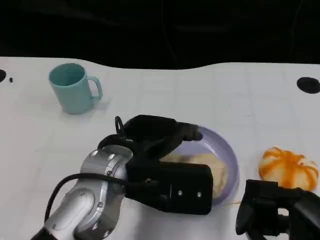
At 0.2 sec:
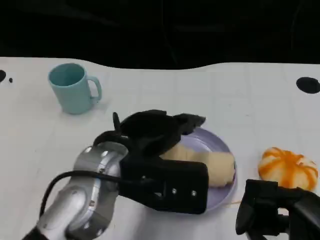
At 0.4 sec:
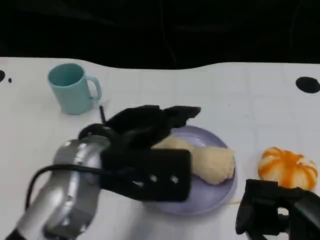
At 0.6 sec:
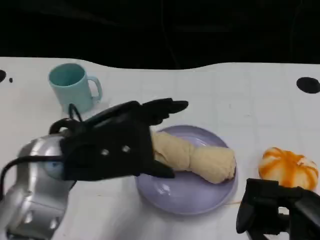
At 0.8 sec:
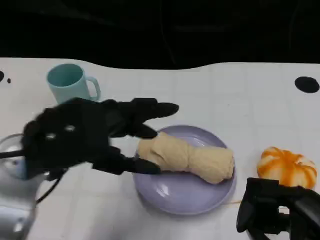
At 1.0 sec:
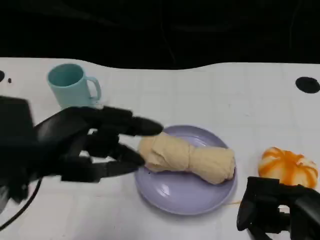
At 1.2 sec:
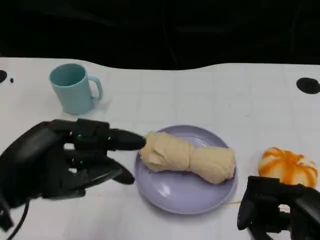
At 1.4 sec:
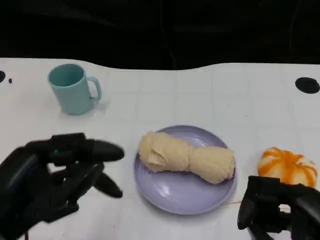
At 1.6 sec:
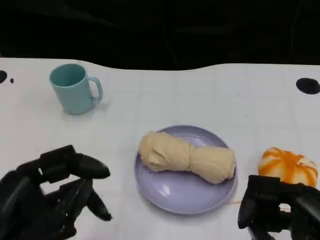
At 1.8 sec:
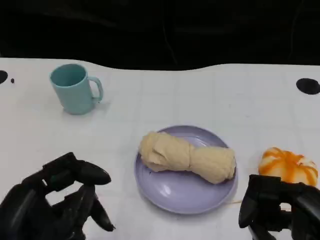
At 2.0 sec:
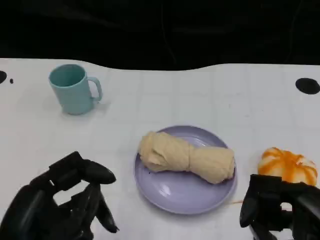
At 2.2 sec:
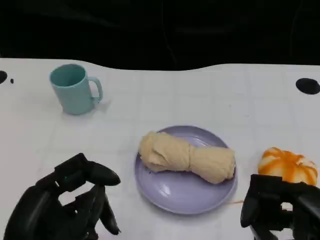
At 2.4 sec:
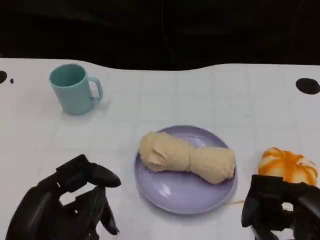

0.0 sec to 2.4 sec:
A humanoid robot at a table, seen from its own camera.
Task of the whole recording: Grasp the towel on the left side of the plate with the left hand and place it into the plate.
0.0 sec to 1.2 sec: The left hand moves to the left and backward, about 15 cm.
1.2 sec to 2.4 sec: The left hand moves downward and backward, about 5 cm.
